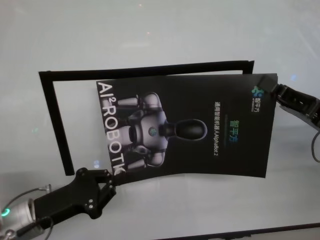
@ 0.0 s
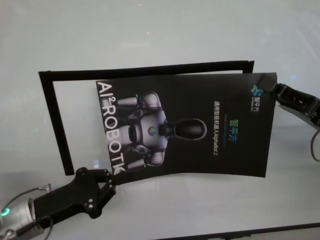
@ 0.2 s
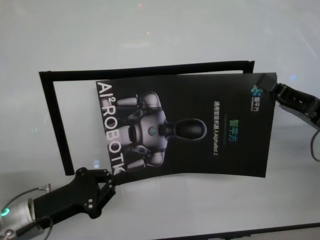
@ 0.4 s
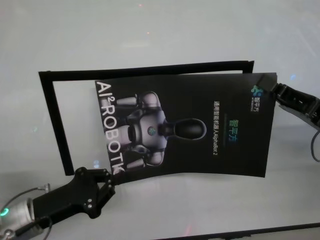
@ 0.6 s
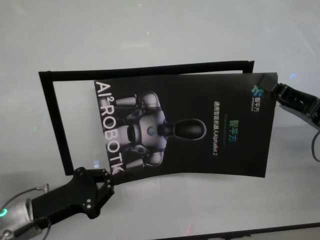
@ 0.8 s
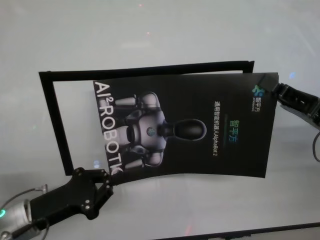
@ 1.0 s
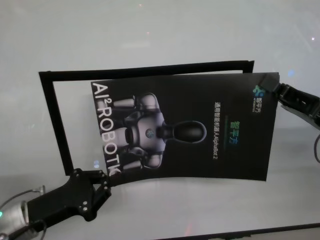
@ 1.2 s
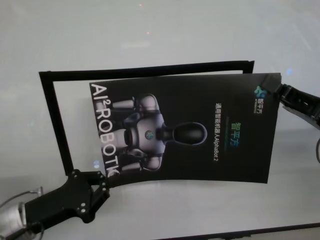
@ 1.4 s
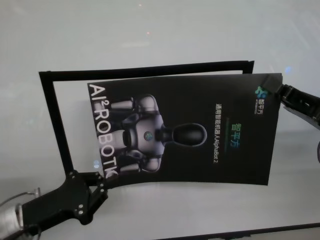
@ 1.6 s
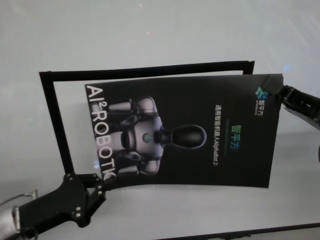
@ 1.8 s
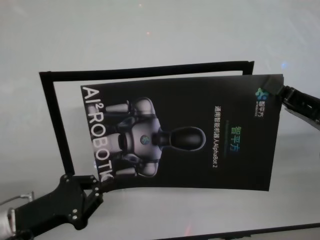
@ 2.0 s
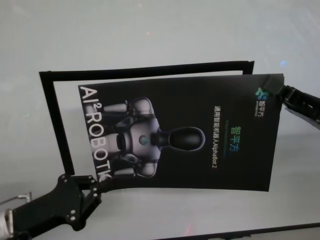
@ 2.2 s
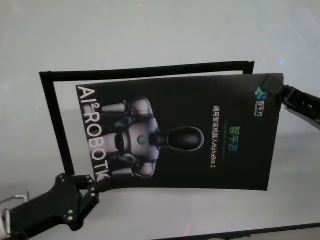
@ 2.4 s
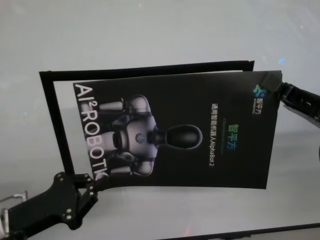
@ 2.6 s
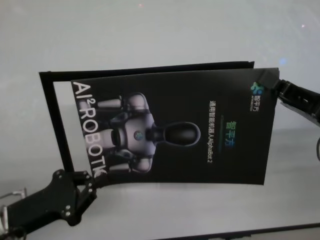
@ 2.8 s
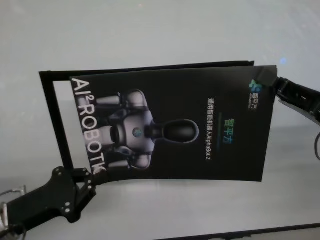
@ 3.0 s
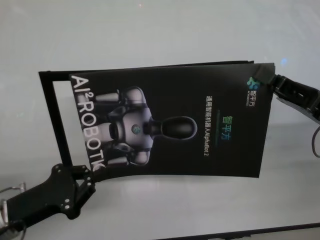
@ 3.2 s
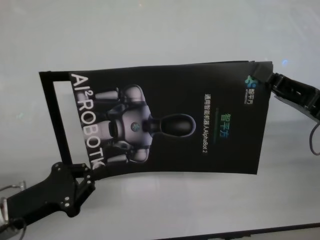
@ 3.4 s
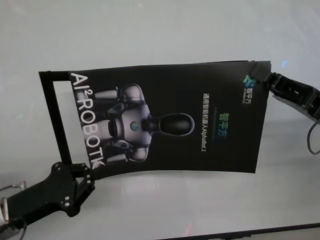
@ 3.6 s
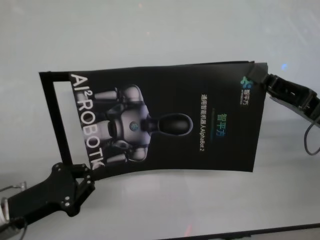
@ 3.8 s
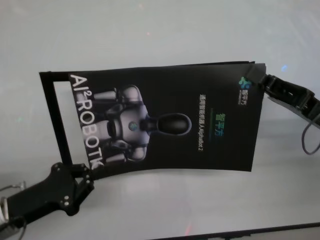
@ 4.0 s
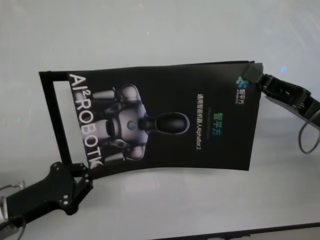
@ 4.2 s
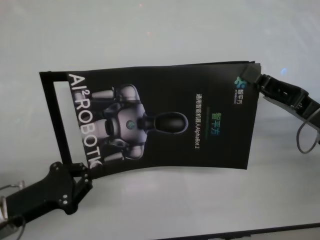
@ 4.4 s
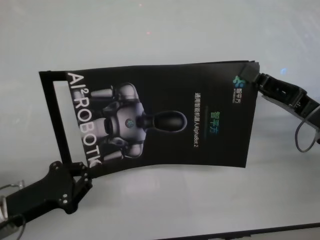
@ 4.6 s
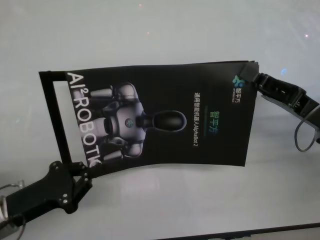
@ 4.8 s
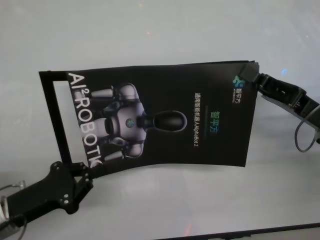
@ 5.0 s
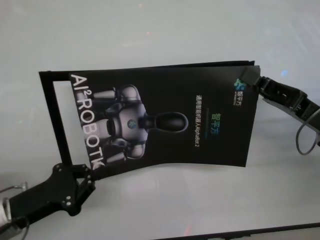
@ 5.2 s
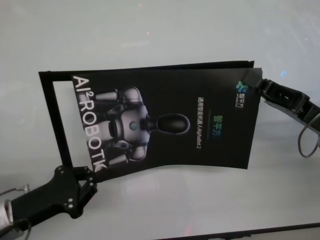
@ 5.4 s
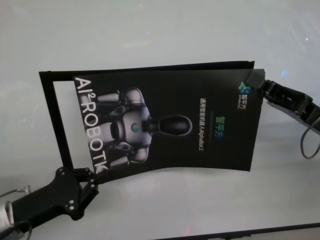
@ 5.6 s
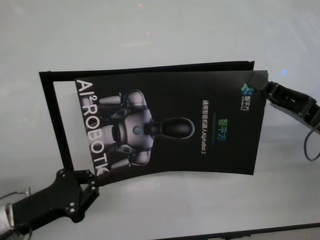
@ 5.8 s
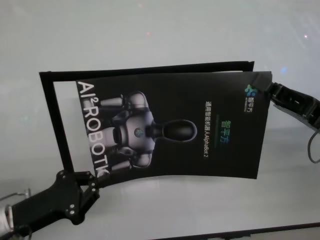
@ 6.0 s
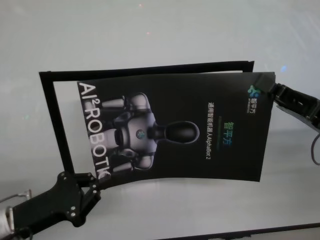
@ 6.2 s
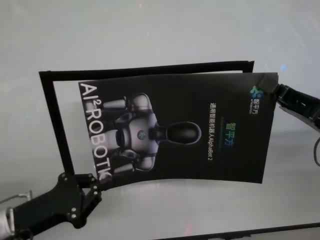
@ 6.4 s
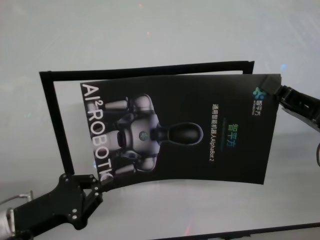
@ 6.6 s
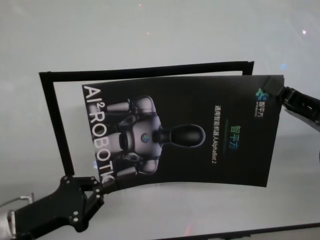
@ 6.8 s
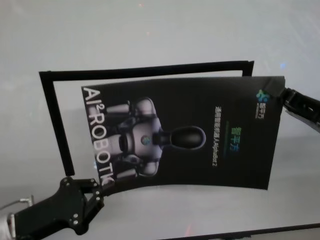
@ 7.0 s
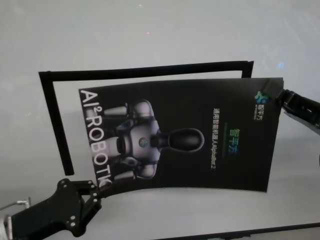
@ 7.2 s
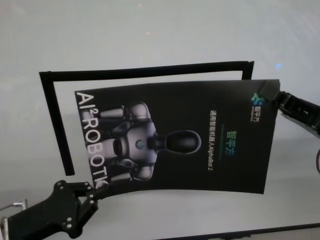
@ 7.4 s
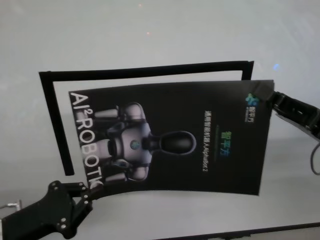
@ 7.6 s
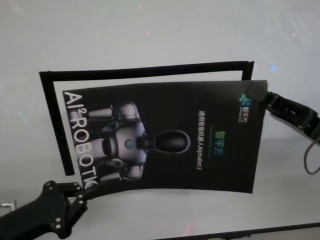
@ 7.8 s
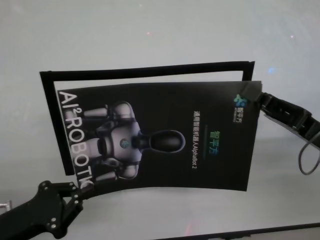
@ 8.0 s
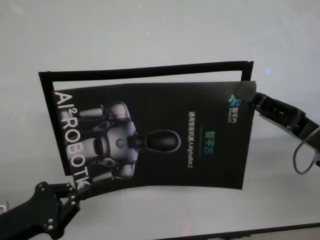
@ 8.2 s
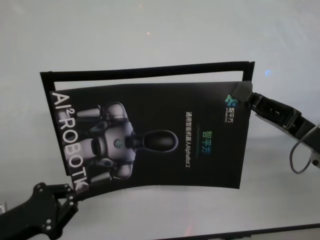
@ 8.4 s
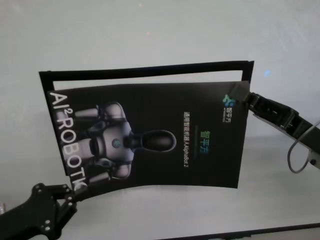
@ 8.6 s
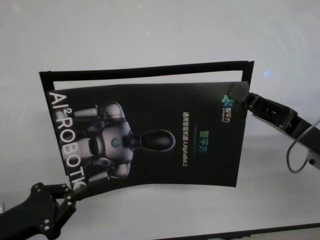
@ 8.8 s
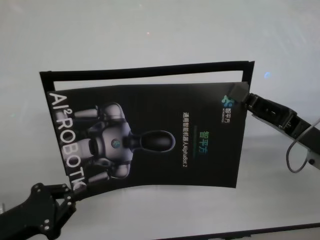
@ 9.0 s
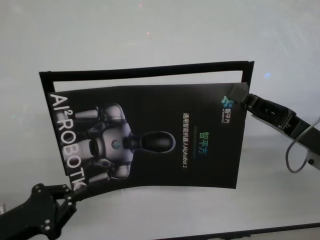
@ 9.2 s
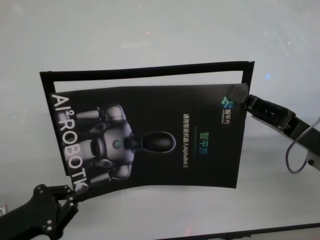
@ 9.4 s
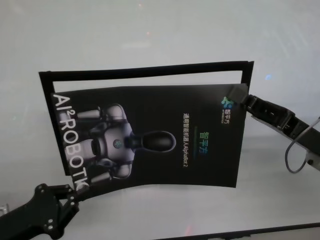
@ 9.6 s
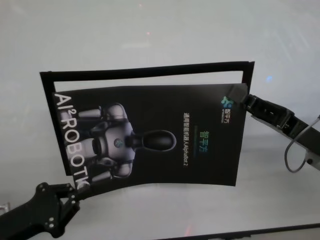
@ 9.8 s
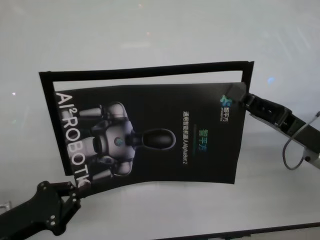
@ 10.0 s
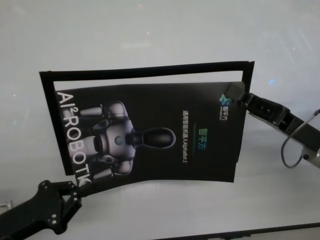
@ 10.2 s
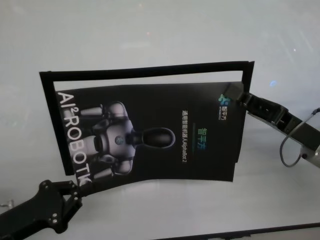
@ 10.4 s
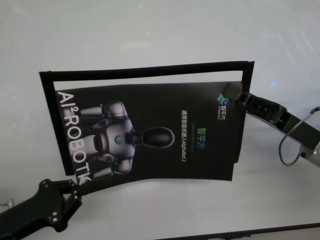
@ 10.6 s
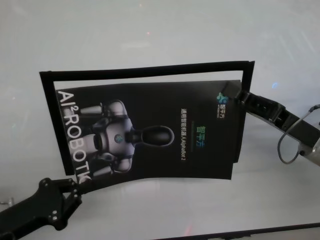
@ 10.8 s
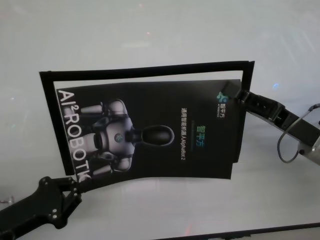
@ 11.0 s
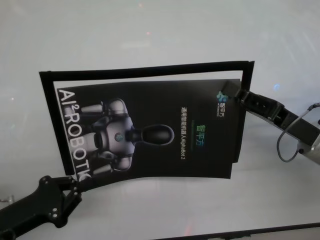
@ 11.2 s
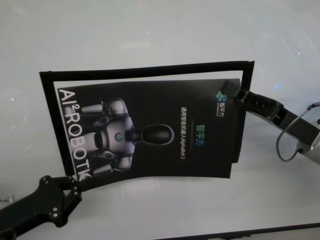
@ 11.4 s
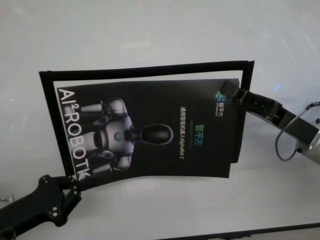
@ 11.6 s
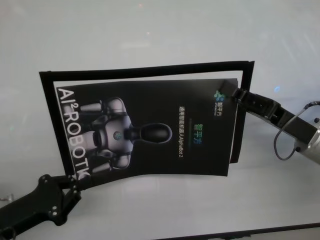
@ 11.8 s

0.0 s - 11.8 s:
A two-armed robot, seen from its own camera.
Task of the whole recording: stick the poster on the table by hand.
Step, 0.0 s - 8.6 s: Stick the advertisement in the top-right corner area with both grippers.

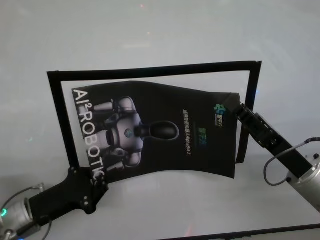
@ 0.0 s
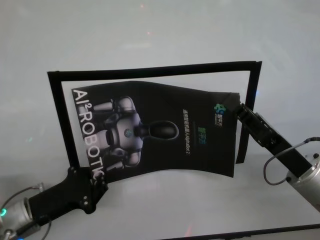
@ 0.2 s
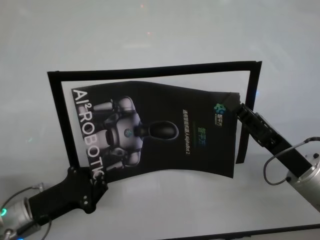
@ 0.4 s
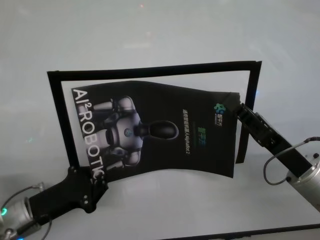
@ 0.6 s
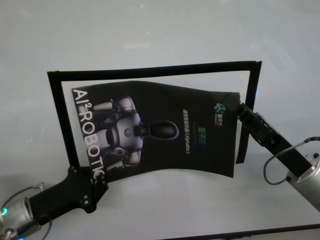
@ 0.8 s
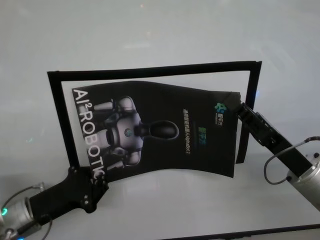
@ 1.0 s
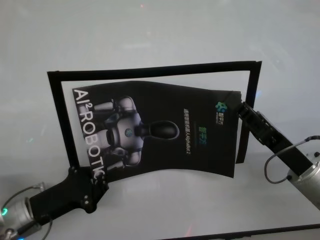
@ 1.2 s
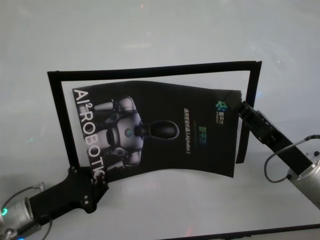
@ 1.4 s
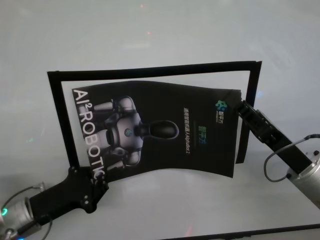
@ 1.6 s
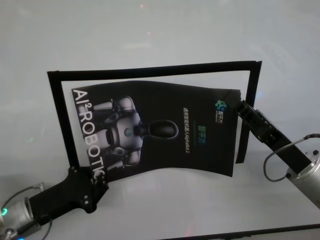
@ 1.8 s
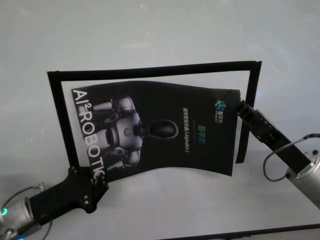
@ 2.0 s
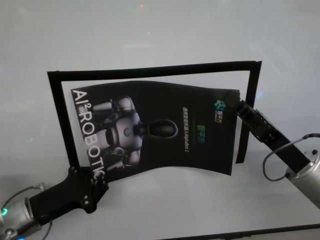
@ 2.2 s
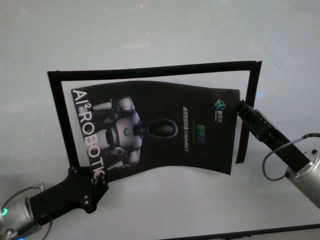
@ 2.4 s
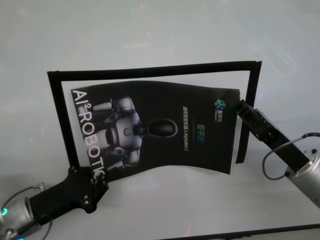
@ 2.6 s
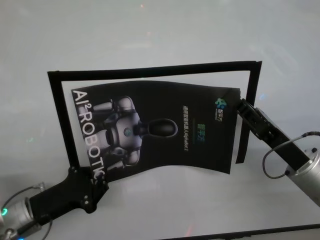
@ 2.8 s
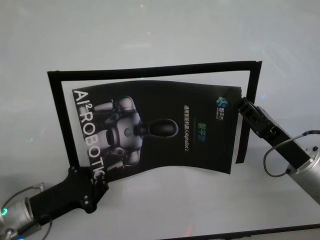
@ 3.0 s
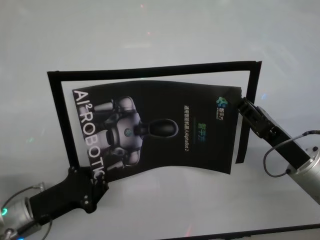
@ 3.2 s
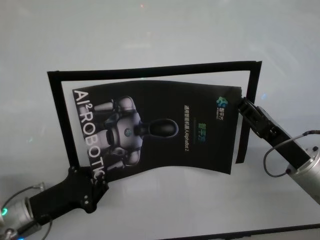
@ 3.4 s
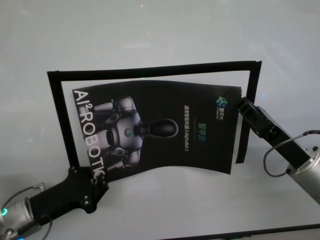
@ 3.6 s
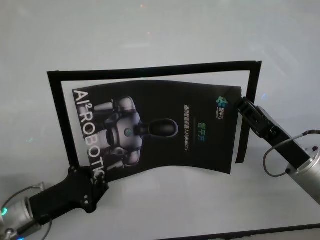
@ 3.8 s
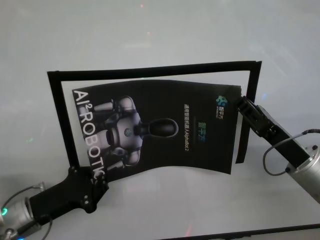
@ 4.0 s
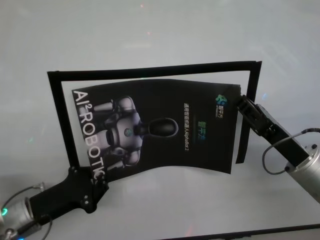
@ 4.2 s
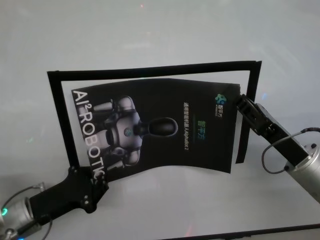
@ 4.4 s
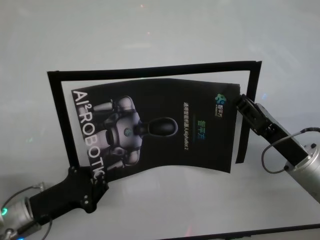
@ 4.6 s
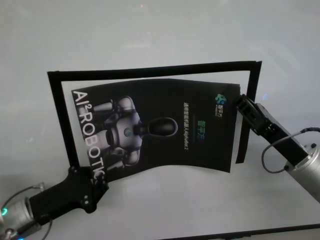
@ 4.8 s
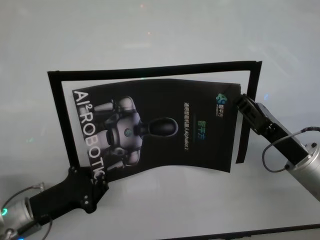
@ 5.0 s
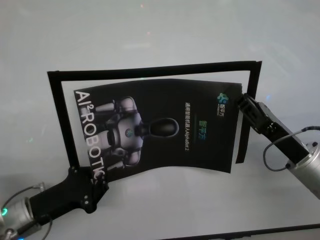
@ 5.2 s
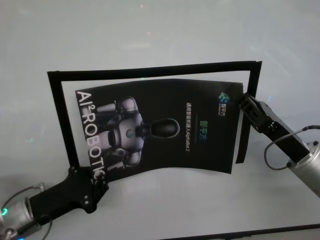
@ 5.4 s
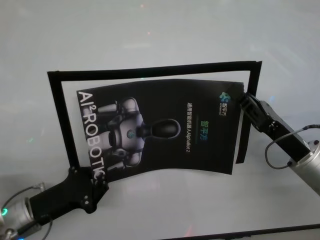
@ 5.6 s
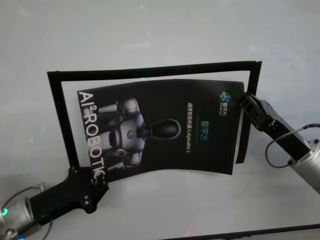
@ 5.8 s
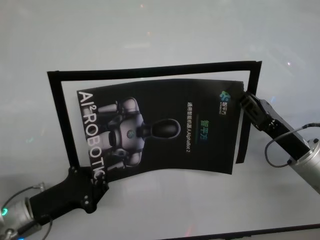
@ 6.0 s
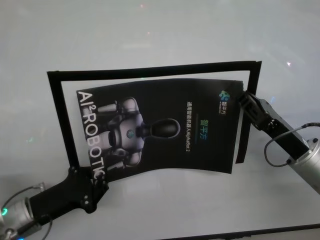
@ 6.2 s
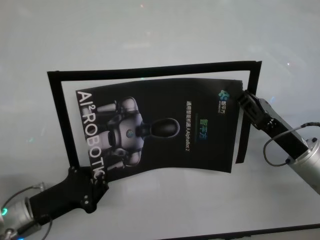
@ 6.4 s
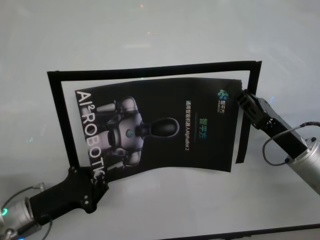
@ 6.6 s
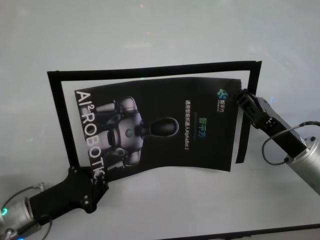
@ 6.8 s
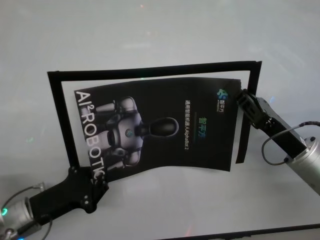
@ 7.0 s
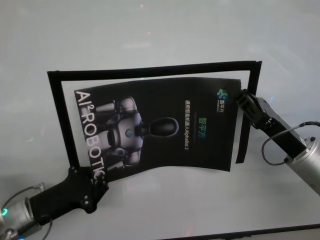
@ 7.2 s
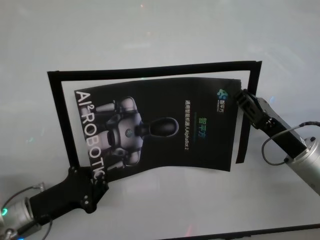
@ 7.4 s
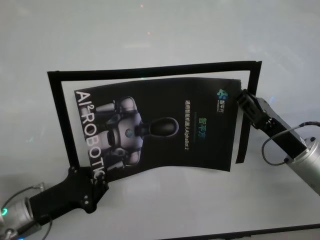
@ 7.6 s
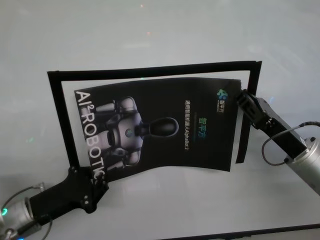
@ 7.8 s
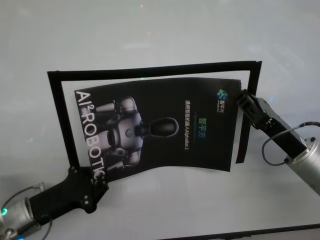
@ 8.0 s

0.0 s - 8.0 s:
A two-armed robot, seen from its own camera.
Task of the whole recording: stick the poster on the table by hand.
Step, 0.0 s - 3.0 s: Stick the advertisement in the top-right corner area with both grippers.
